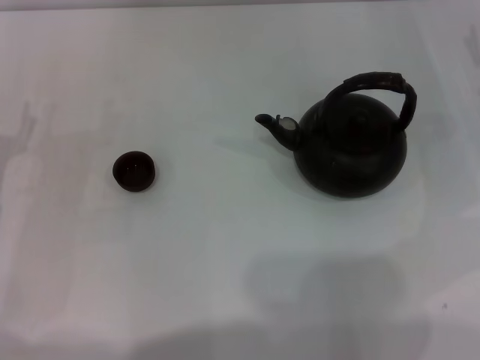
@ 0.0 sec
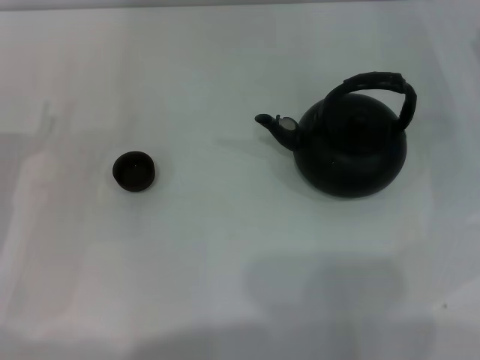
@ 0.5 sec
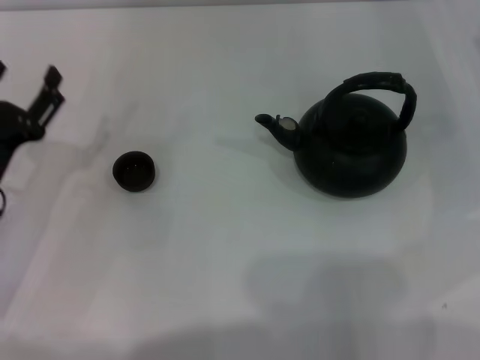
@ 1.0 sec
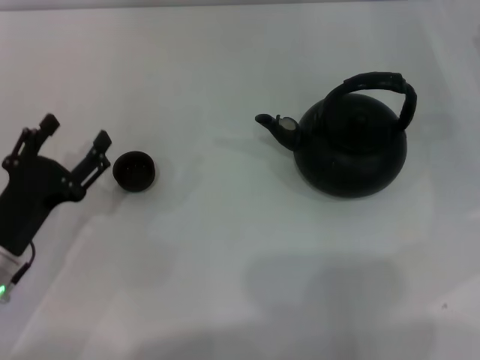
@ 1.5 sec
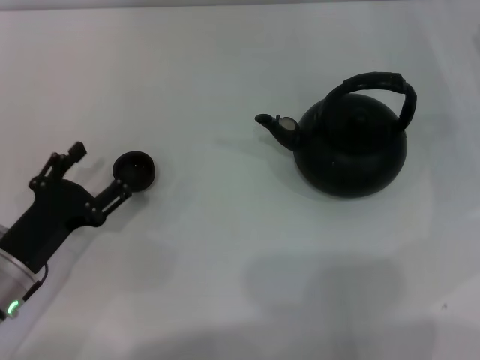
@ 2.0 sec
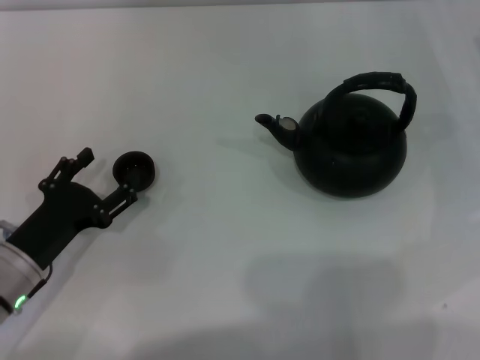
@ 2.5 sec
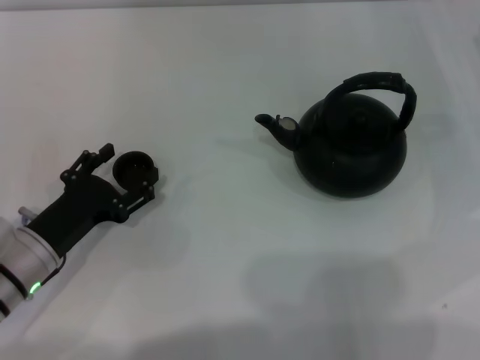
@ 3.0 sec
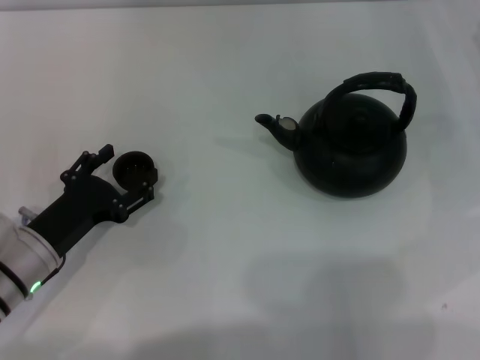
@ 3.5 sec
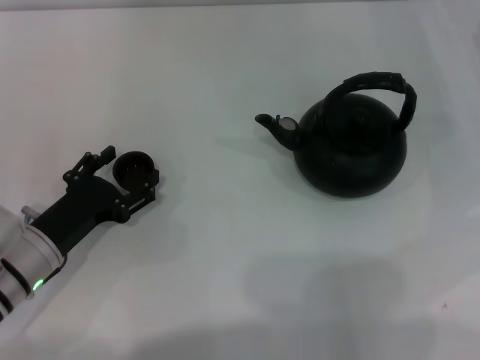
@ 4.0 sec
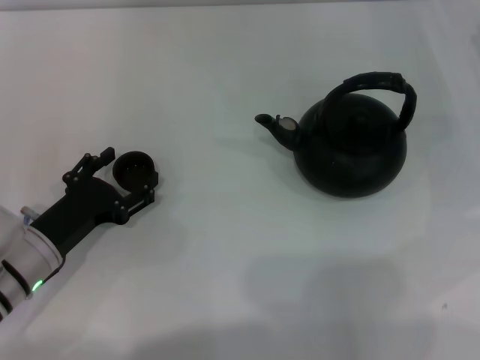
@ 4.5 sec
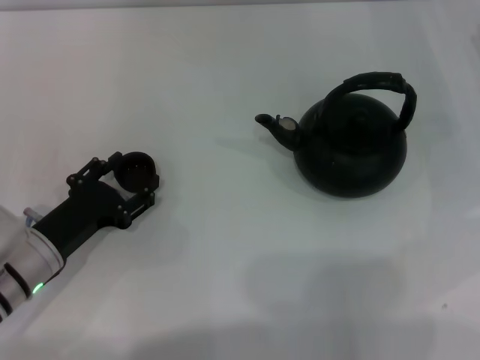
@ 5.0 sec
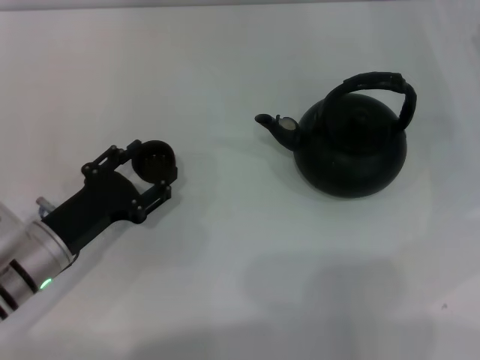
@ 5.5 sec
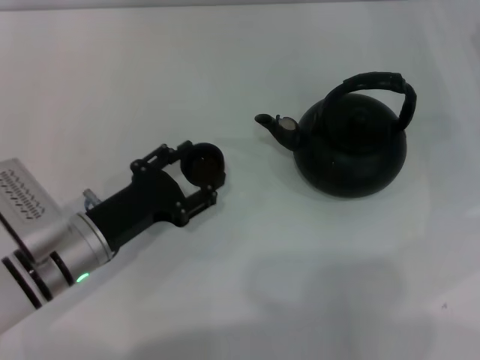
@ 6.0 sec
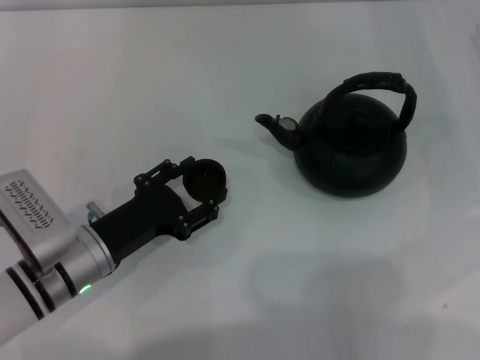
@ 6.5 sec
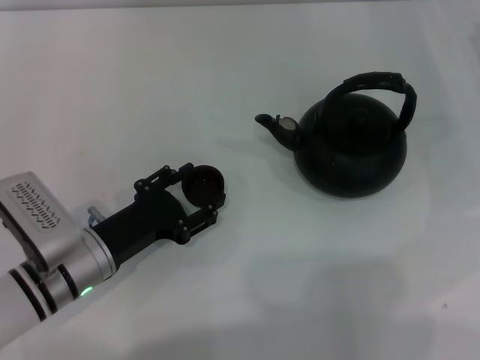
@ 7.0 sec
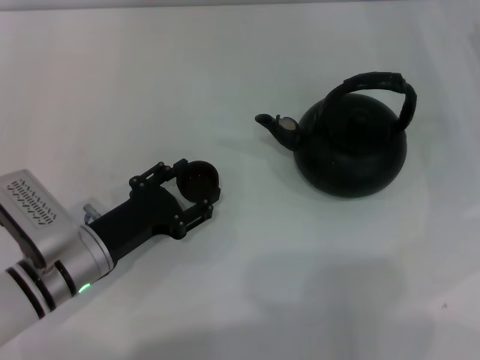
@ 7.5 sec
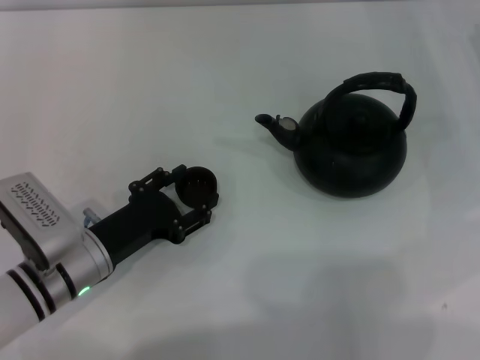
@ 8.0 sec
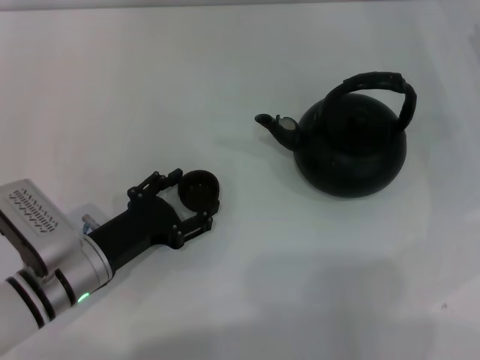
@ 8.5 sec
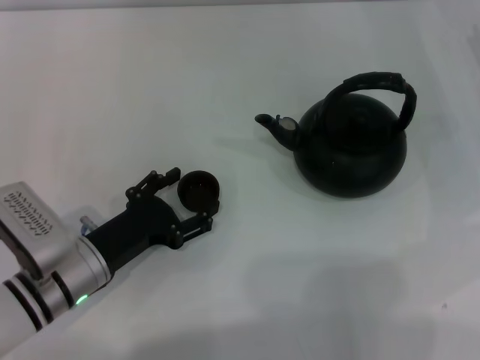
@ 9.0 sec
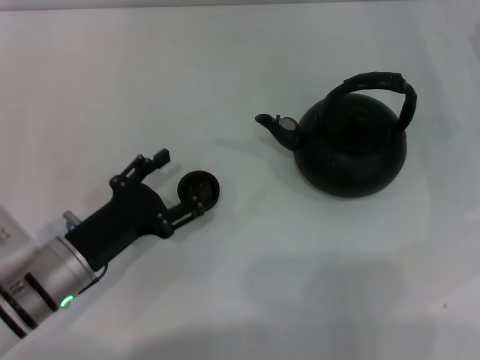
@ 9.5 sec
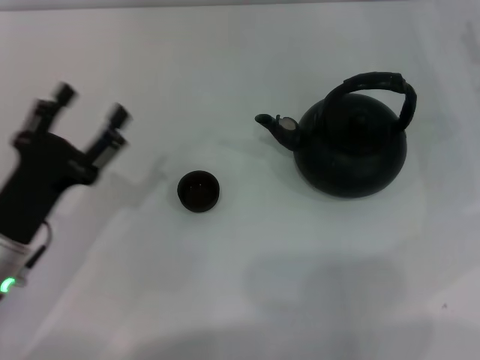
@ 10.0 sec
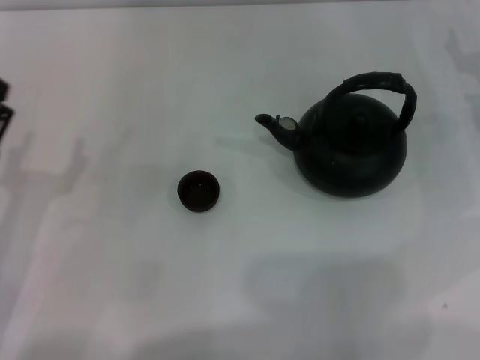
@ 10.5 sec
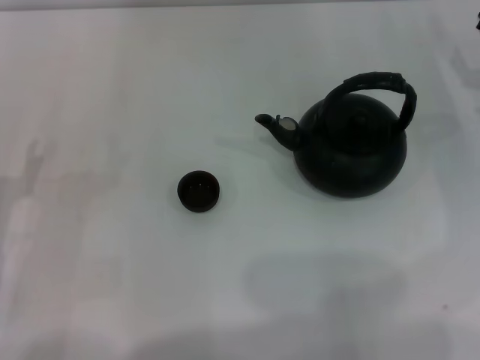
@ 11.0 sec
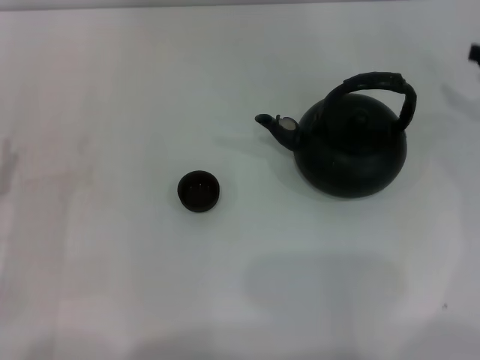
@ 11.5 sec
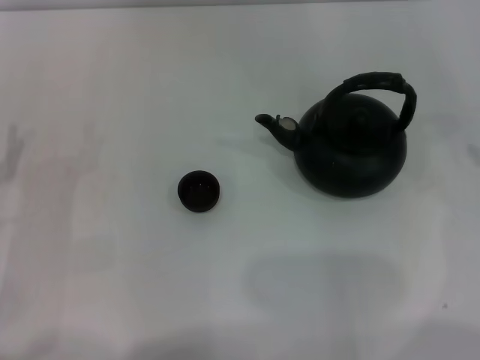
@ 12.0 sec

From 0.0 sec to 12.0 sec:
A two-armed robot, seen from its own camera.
Task of the whole recording: Grasp the handle of the teapot with one hand and pour tea into the teacup.
Step, from 0.0 sec to 5.0 sec: Pick up the teacup with the left gripper.
Step, from 6.0 sec to 9.5 sec: Place the teacup in the center of view with the left gripper.
From 0.0 sec to 2.0 sec: The left gripper shifts some 10 cm to the right and backward.
From 2.0 sec to 4.0 sec: The grippers move only a little.
From 4.0 sec to 6.0 sec: The left gripper moves about 5 cm, and closes.
From 6.0 sec to 8.0 sec: The grippers move only a little.
From 8.0 sec to 10.0 sec: The left gripper shifts by approximately 5 cm, and opens up.
From 10.0 sec to 12.0 sec: The left gripper is displaced to the left by roughly 5 cm.

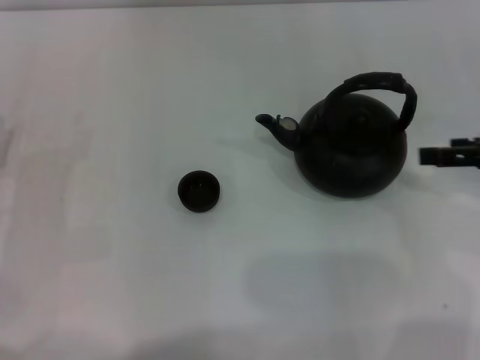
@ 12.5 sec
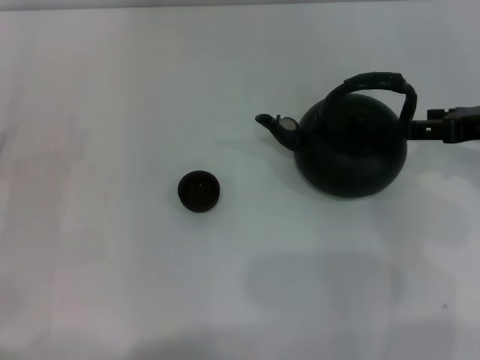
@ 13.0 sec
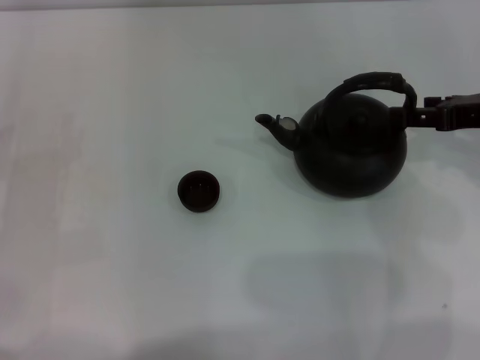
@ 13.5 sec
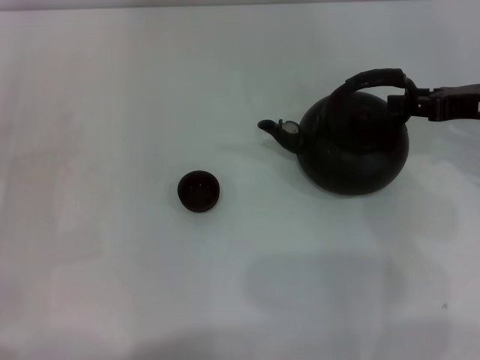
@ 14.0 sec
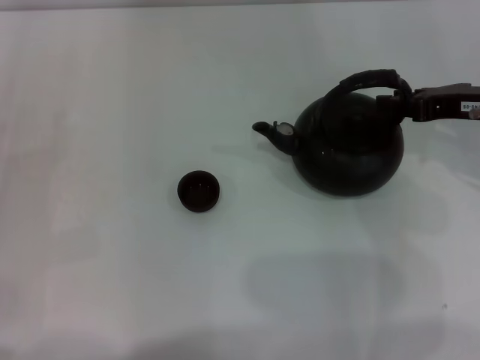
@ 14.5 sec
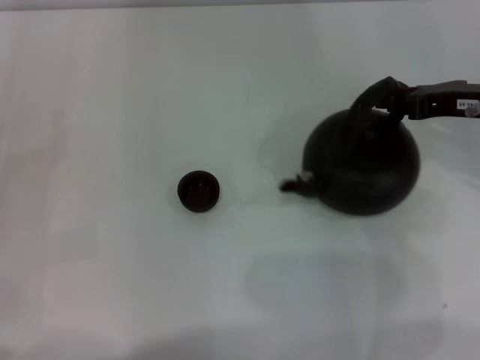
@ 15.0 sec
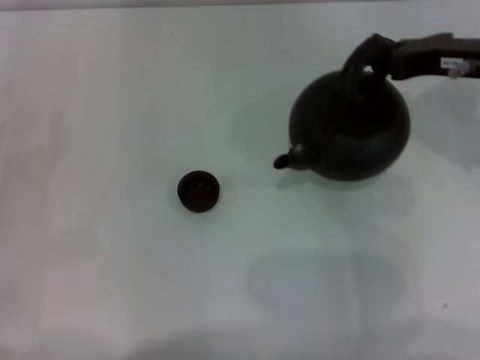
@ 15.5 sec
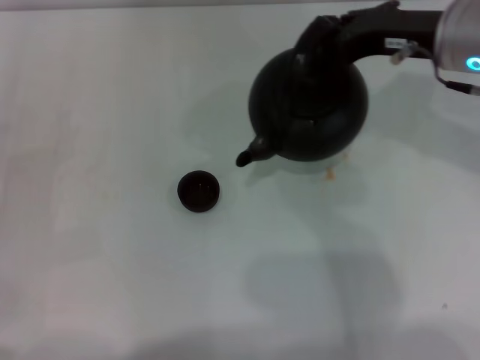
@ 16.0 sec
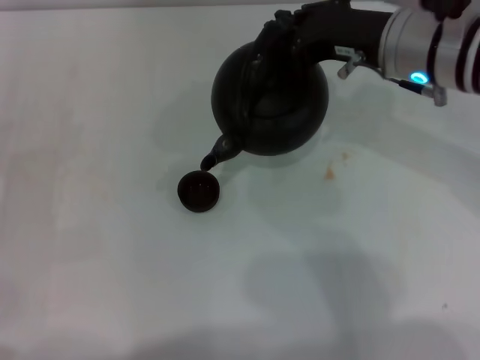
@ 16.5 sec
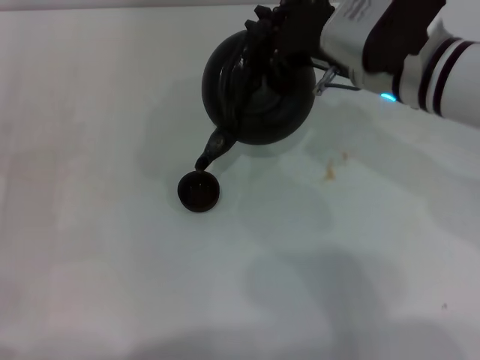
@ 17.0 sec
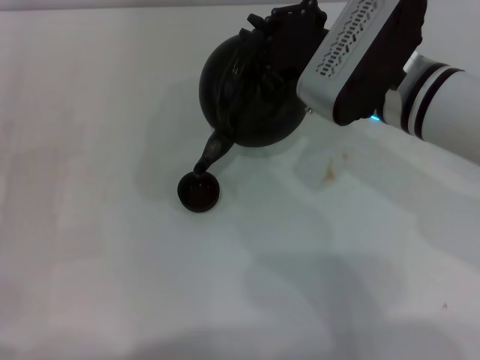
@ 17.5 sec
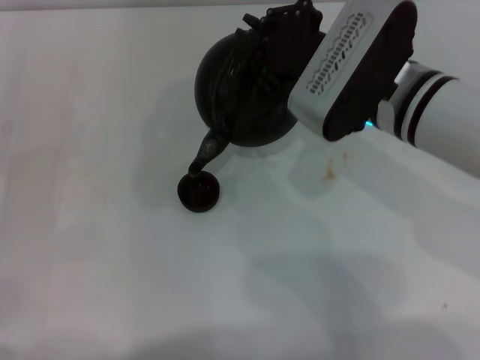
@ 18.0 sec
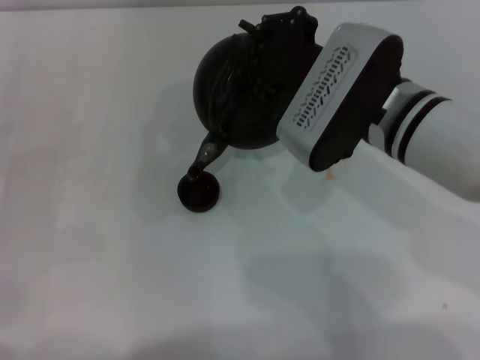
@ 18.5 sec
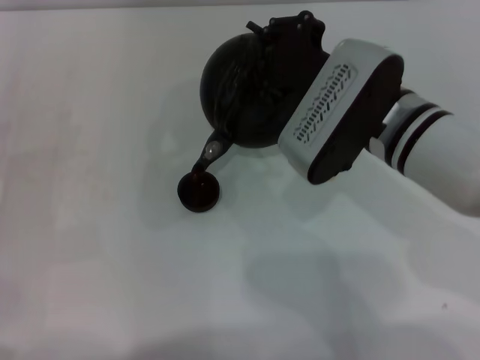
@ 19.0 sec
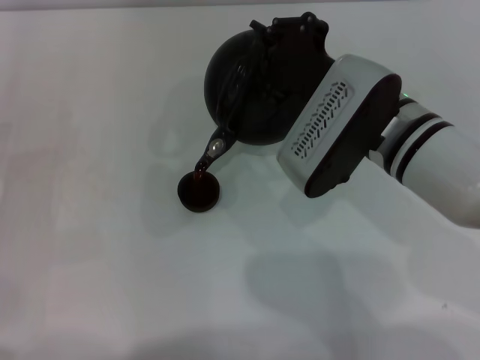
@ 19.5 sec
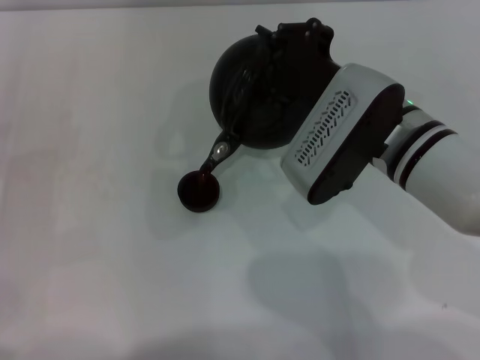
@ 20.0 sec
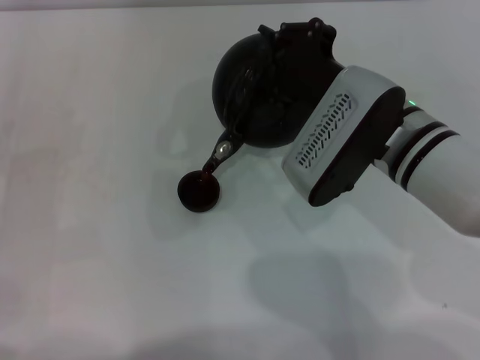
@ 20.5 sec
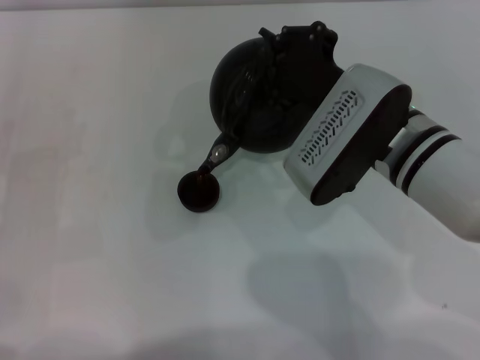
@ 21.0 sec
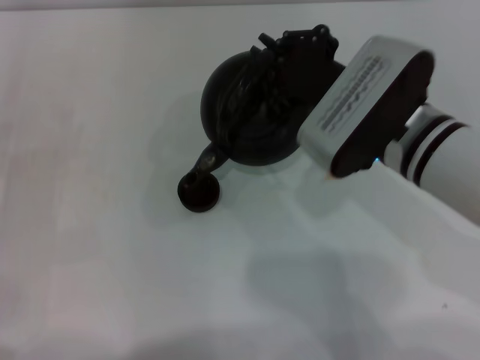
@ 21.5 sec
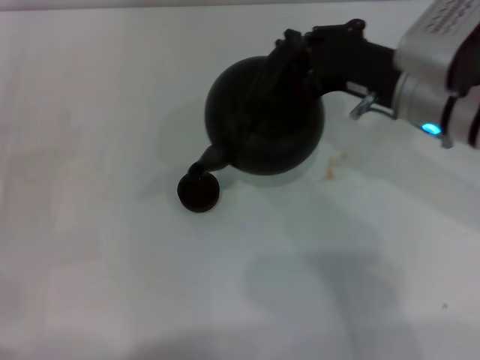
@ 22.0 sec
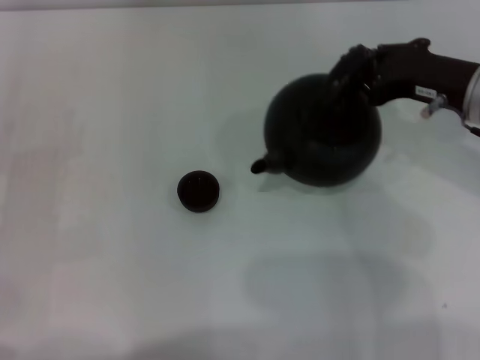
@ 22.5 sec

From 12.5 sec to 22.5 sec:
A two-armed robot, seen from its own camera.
Task of the whole recording: Grasp the handle of the teapot with one hand and pour tea into the teacup.
Step, from 12.5 sec to 16.0 sec: Pick up the teapot with the right gripper.
Step, from 16.5 sec to 21.5 sec: Pour tea into the teacup with the right gripper.
From 12.5 sec to 14.5 sec: The right gripper moves about 5 cm, and closes its fingers.
From 14.5 sec to 16.5 sec: The right gripper shifts about 10 cm to the left.
From 16.5 sec to 18.5 sec: The right gripper shifts by some 5 cm.
From 18.5 sec to 20.5 sec: The grippers move only a little.
From 20.5 sec to 22.5 sec: The right gripper goes approximately 10 cm to the right.

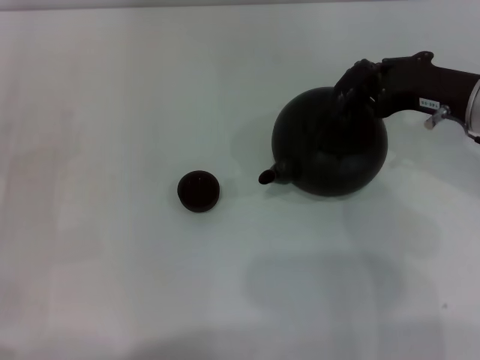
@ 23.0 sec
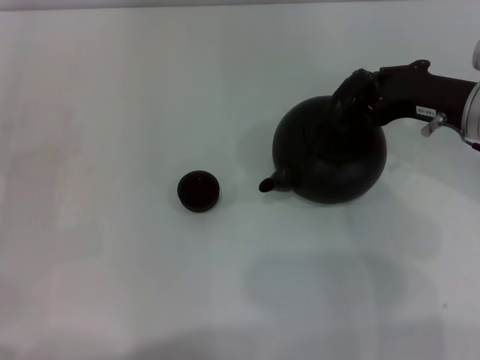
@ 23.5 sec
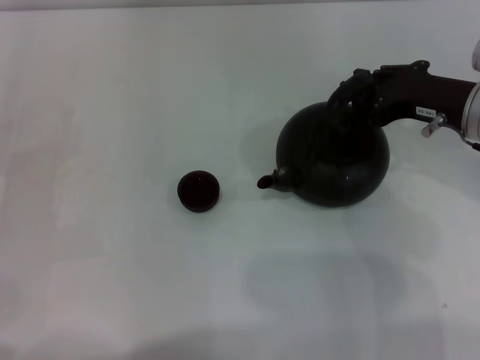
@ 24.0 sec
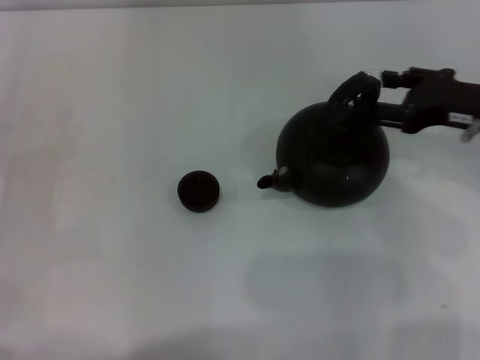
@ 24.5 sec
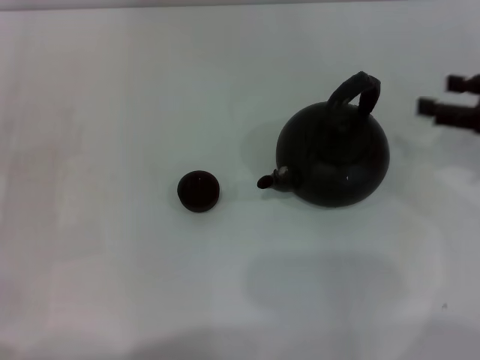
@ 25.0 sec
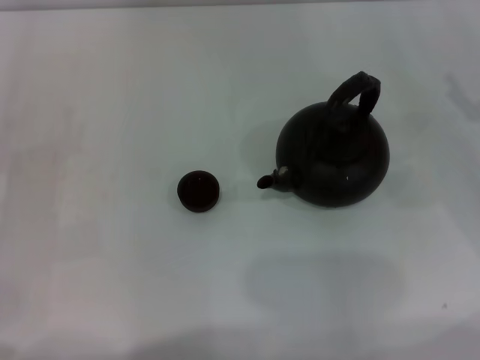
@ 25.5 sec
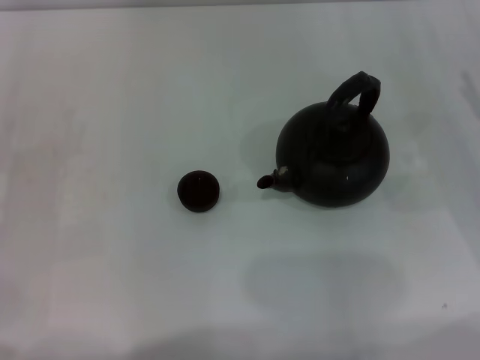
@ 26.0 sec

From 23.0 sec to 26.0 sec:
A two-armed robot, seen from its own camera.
Task of the whole recording: Grasp the handle of the teapot with one hand and pour tea into the teacup.
Step, from 23.0 sec to 24.5 sec: Put down the teapot with the right gripper.
From 23.0 sec to 24.5 sec: The right gripper opens its fingers.
From 24.5 sec to 26.0 sec: The right gripper heads to the right and downward, covering some 10 cm.
